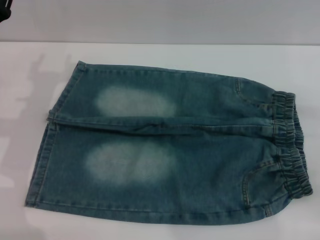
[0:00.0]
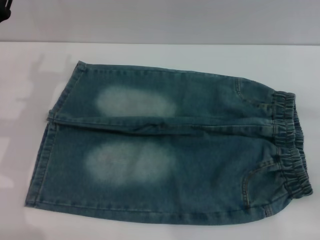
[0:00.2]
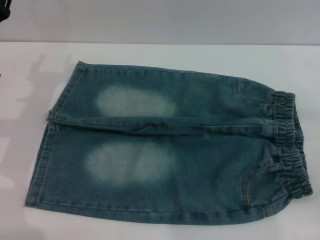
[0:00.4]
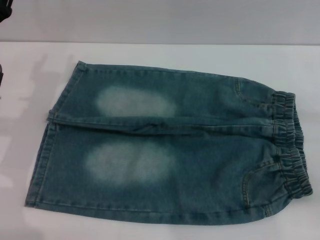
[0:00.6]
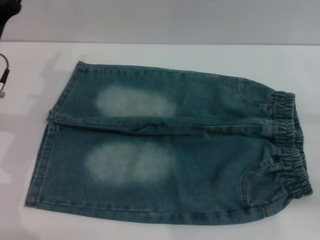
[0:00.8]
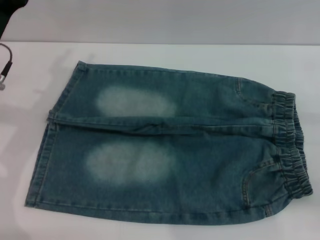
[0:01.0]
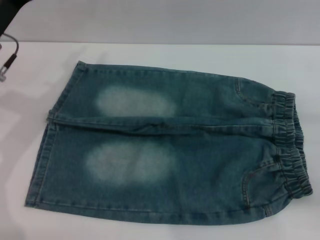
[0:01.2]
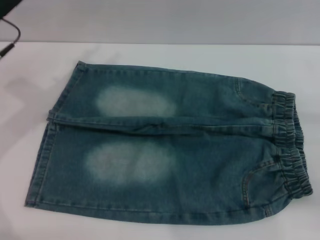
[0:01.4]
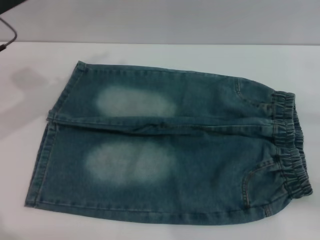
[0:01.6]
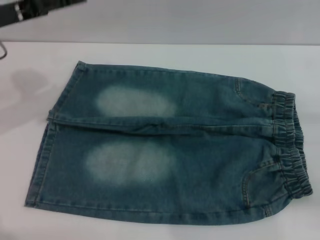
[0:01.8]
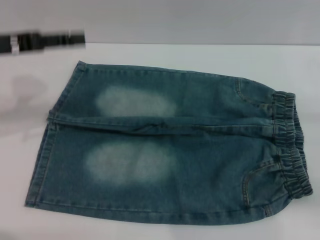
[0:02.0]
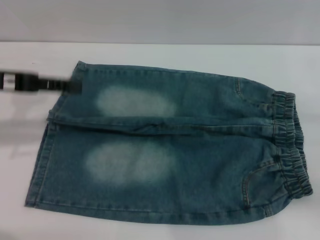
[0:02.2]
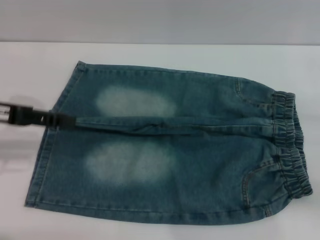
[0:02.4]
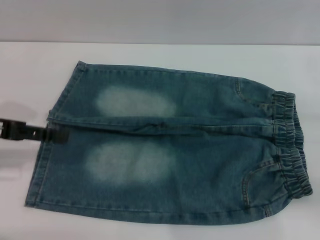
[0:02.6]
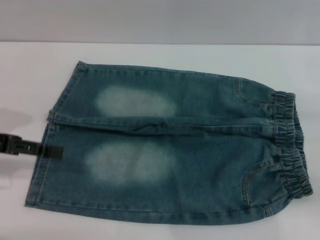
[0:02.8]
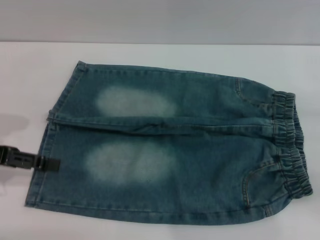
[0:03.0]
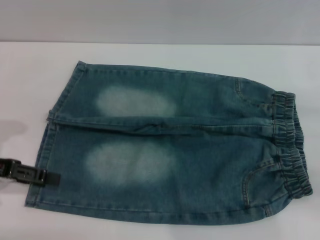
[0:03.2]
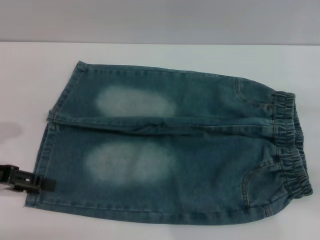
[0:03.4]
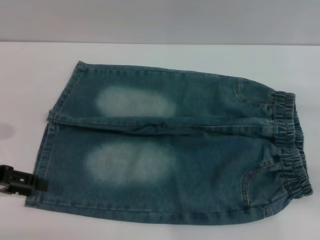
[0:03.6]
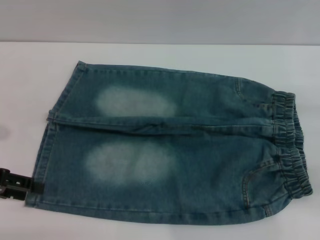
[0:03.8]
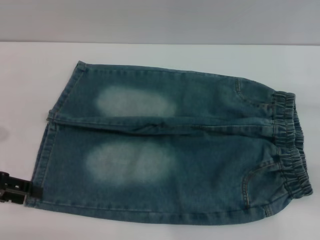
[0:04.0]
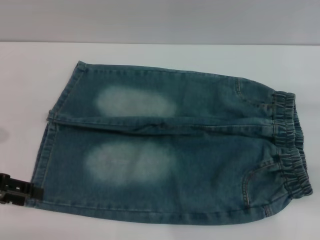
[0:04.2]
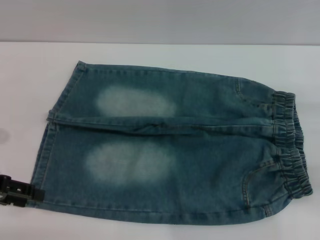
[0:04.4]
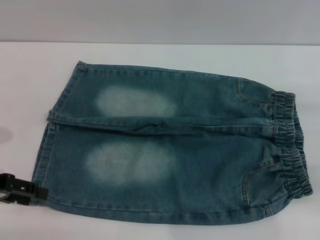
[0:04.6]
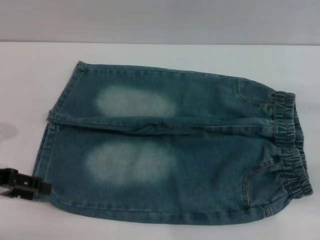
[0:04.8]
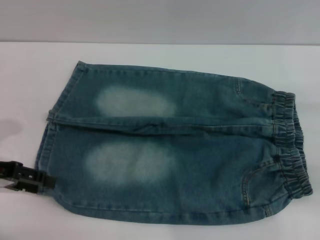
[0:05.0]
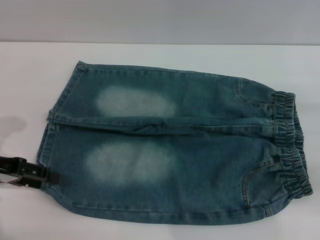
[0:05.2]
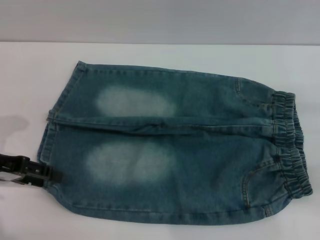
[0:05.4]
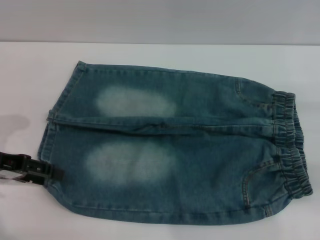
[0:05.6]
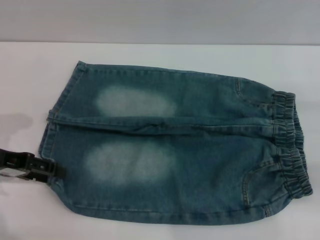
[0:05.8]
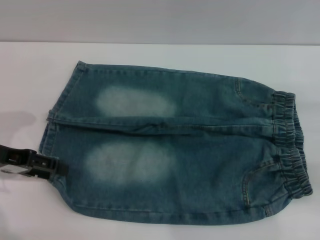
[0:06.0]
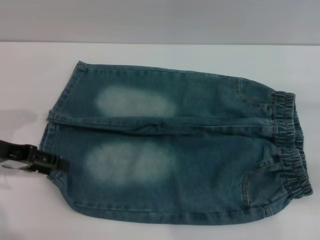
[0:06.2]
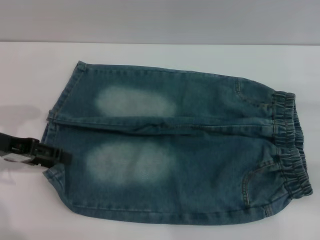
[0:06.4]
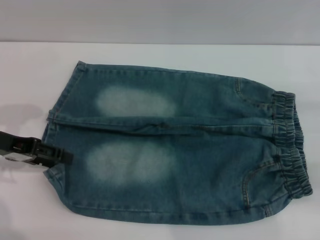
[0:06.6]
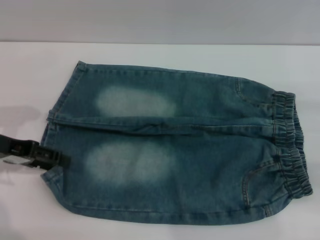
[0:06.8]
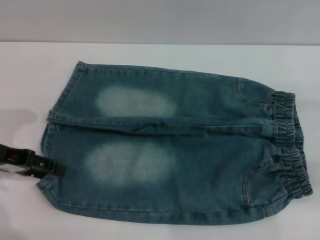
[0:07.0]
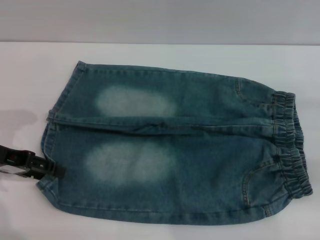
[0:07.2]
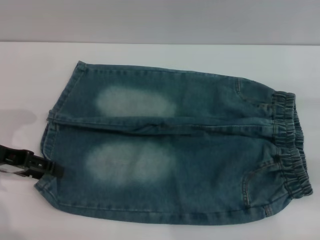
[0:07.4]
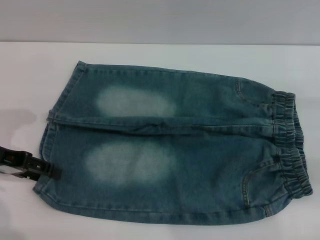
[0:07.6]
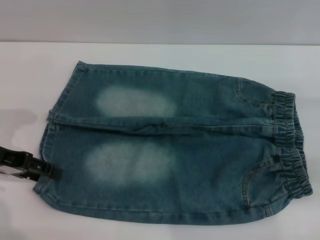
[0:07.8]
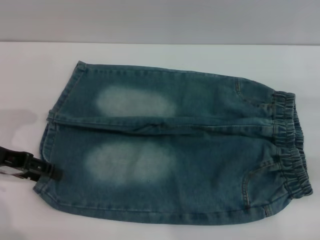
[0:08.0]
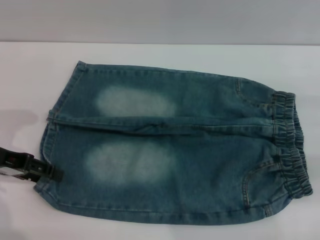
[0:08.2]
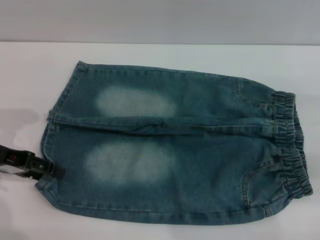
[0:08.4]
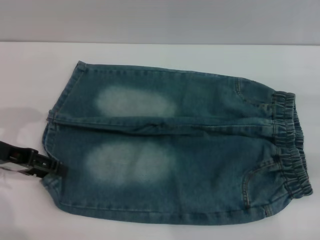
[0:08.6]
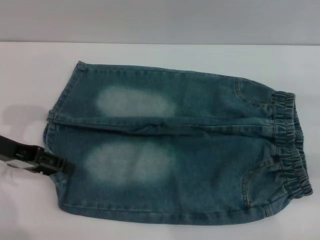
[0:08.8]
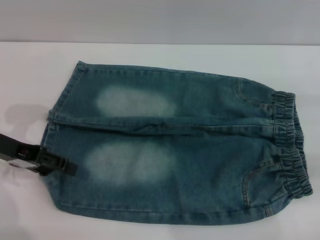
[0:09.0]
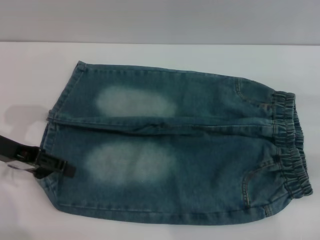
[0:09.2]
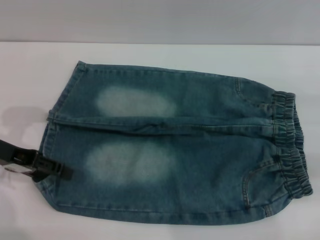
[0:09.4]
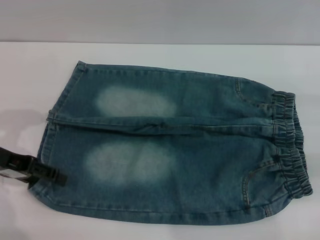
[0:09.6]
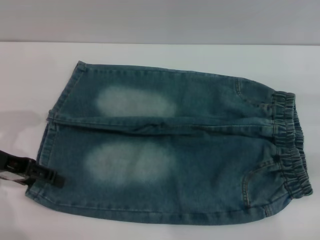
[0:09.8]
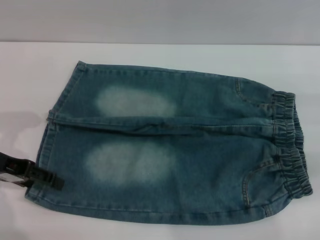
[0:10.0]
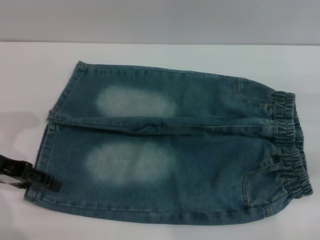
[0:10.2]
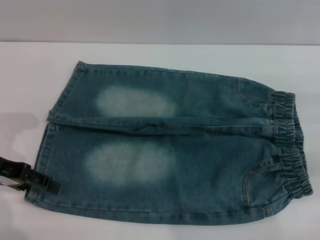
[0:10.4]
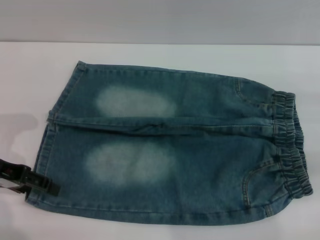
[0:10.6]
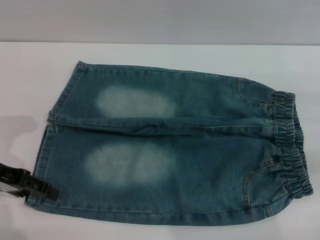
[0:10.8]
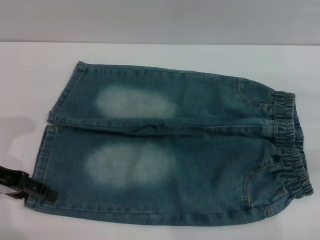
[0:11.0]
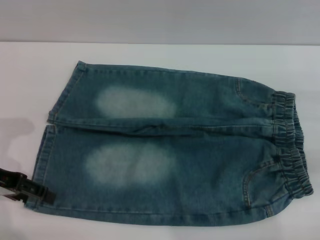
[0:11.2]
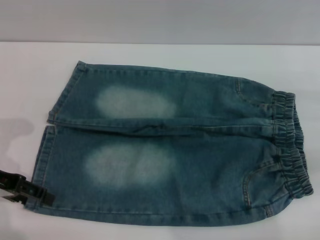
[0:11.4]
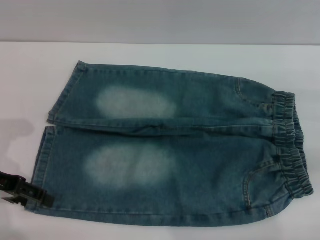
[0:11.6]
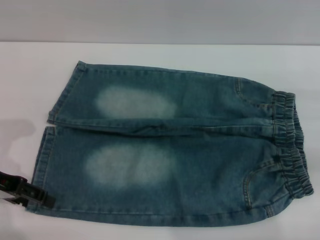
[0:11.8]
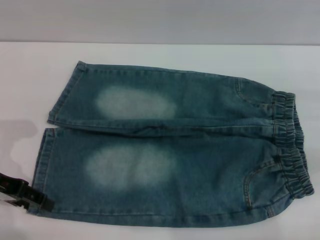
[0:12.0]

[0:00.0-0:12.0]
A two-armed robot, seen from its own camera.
0:00.0 to 0:01.6: The left gripper moves upward, approximately 10 cm.
0:01.6 to 0:03.0: The left gripper heads backward and to the left, covering roughly 10 cm.
0:04.4 to 0:06.0: The grippers stay close to where they were, moving slightly.
0:06.0 to 0:12.0: The grippers make only small movements.

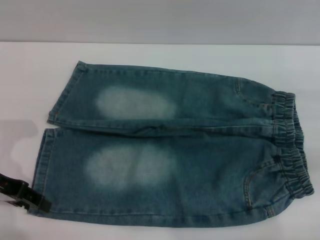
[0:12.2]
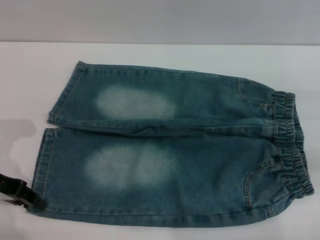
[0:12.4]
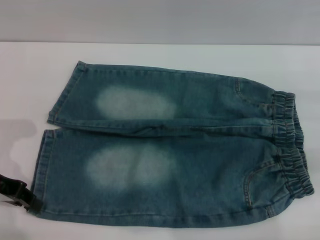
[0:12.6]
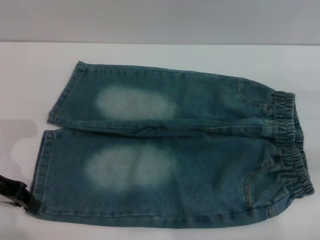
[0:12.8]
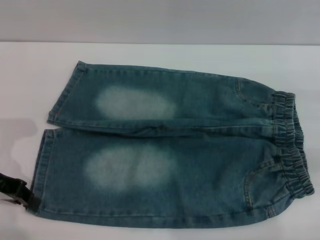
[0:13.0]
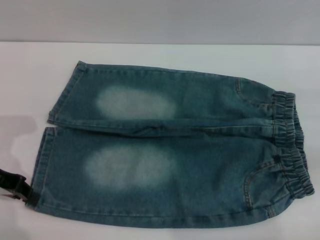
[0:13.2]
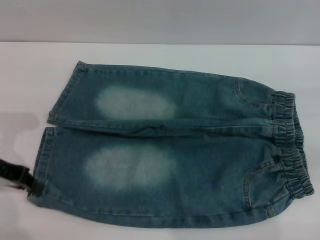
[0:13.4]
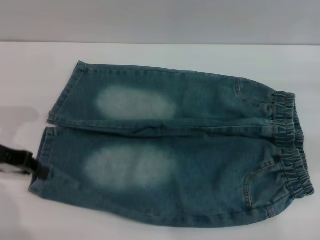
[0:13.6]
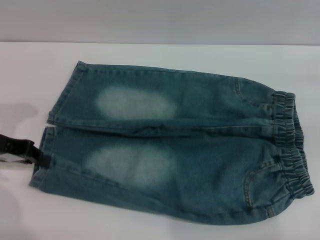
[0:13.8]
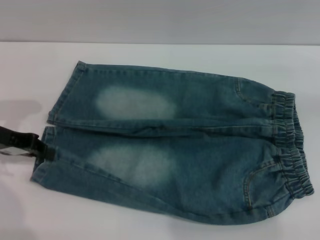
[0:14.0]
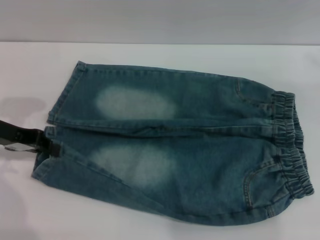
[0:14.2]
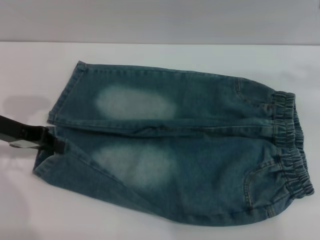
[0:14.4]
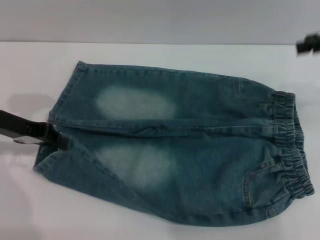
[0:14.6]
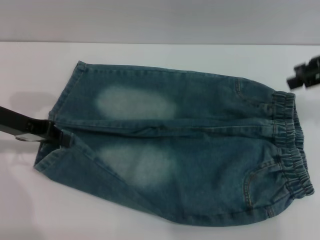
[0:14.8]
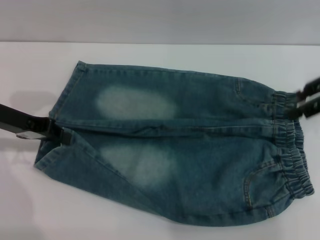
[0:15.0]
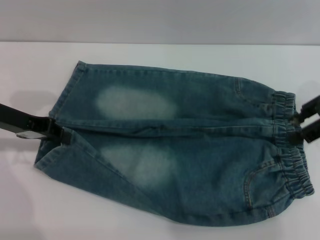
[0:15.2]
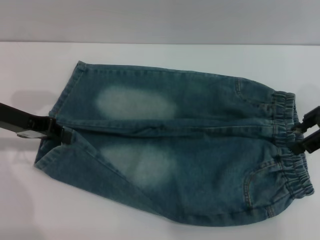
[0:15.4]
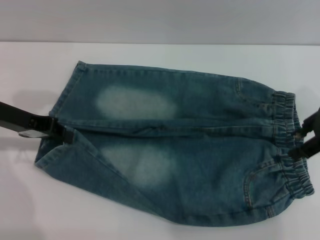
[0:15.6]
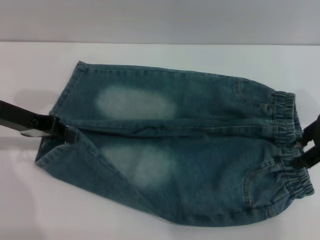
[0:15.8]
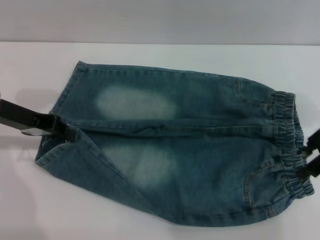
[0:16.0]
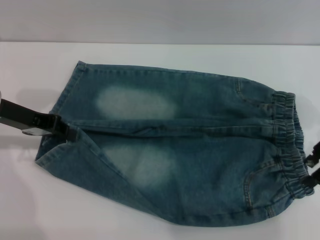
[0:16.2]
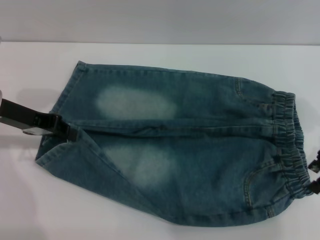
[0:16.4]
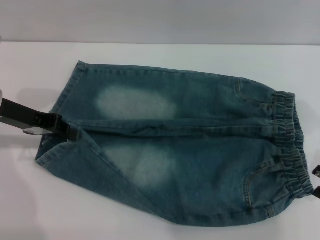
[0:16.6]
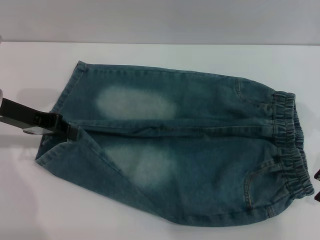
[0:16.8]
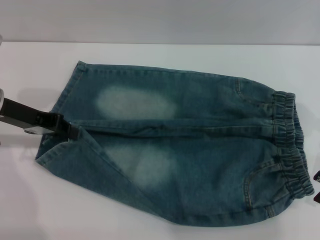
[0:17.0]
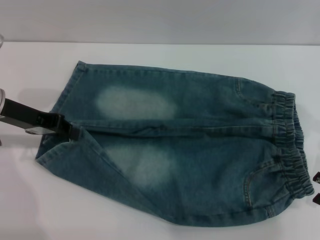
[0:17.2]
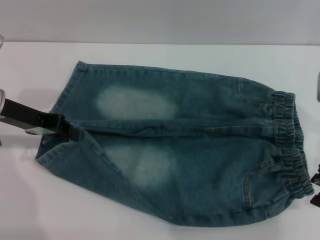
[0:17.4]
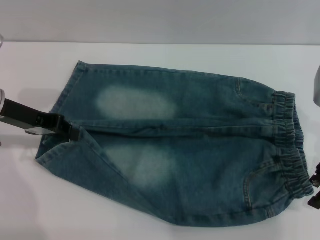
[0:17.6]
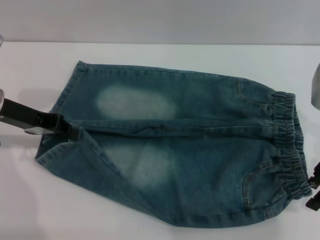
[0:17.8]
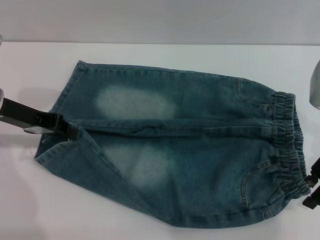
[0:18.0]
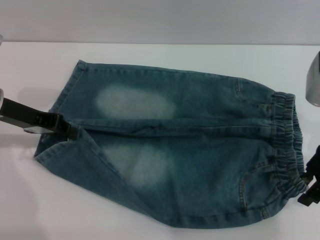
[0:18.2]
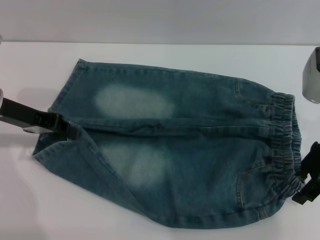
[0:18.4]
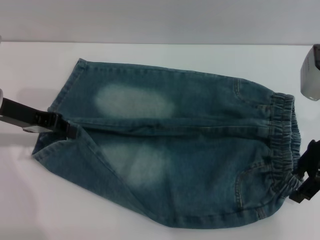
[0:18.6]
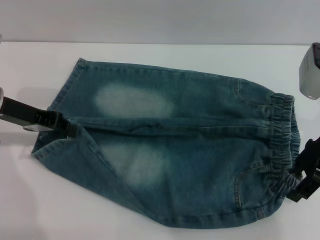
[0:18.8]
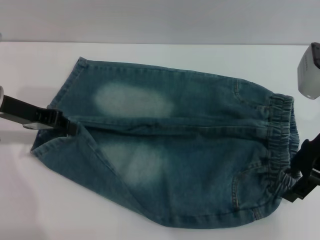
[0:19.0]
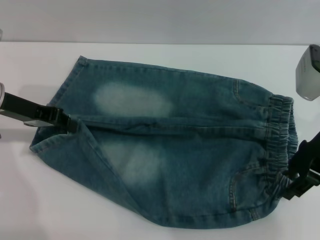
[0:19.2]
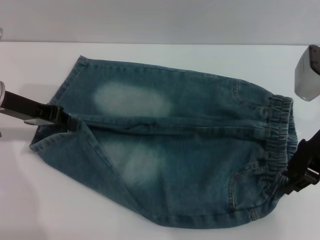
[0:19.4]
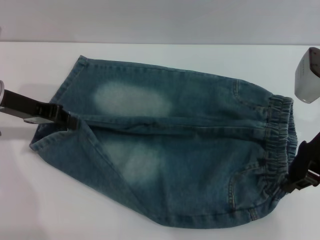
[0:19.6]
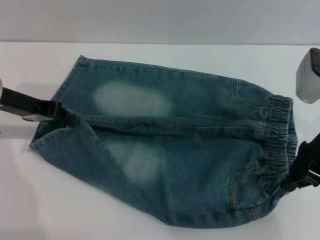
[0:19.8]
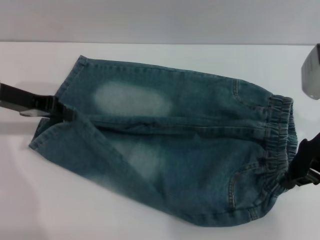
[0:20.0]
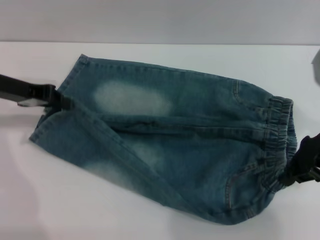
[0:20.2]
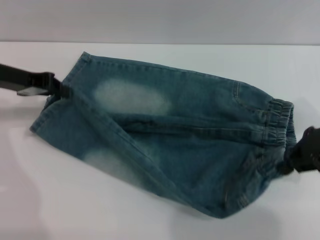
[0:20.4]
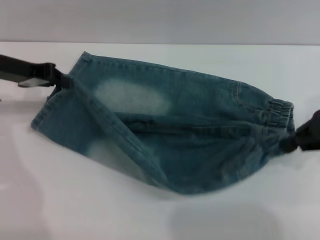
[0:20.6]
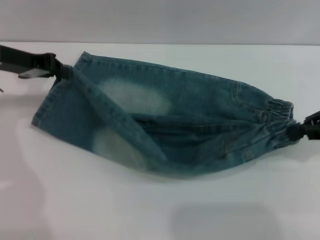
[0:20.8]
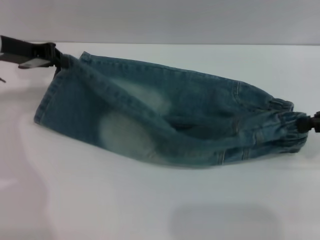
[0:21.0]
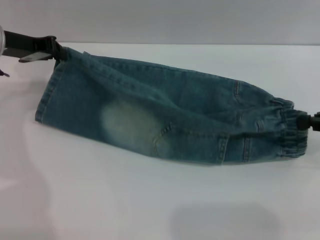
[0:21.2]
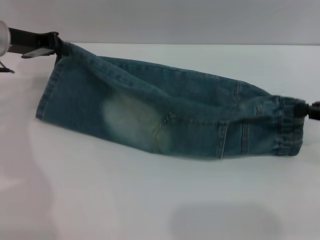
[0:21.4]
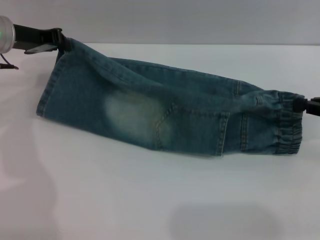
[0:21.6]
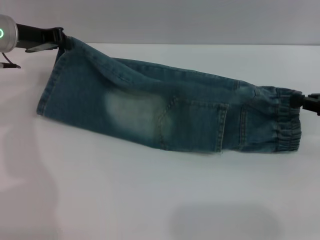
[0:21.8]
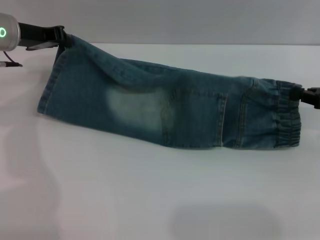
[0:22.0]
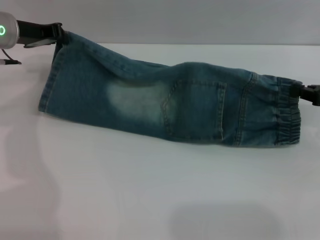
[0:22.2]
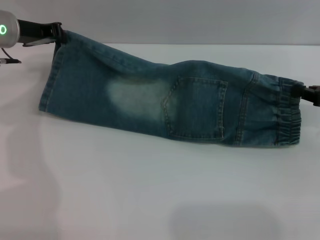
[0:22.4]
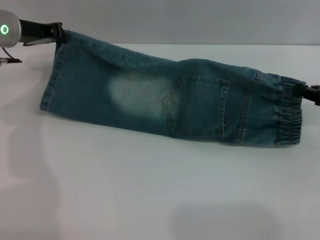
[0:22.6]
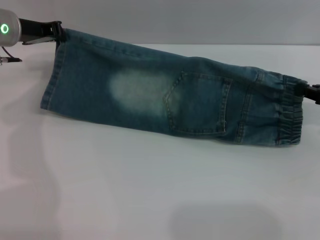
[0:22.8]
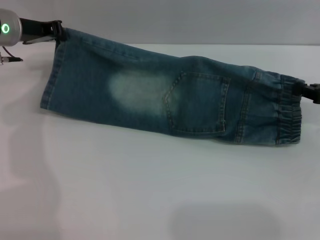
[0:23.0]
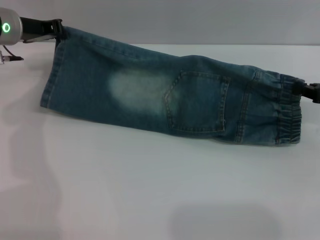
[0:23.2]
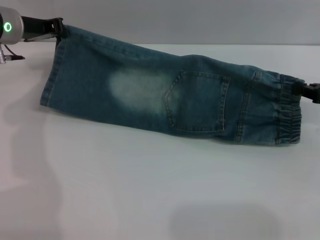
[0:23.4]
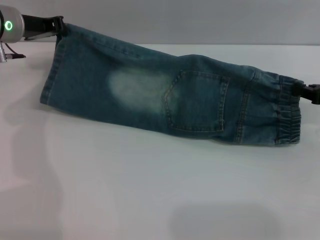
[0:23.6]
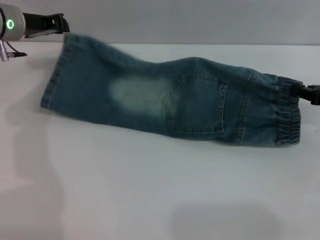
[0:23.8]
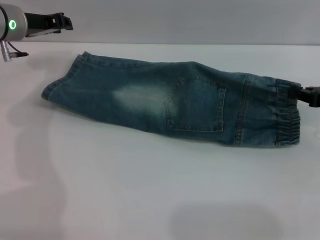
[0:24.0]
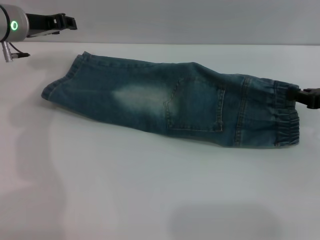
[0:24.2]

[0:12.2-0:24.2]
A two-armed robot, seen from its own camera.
Step, 0:12.2 to 0:24.0: Fold the bottom of the pants upward with both grippers.
0:12.2 to 0:13.8: The left gripper closes. Meanwhile the right gripper moves to the right and upward, about 10 cm.
0:13.8 to 0:15.2: The right gripper goes some 15 cm to the left.
0:15.2 to 0:16.6: The right gripper moves some 5 cm.
0:16.6 to 0:18.2: There are only small adjustments of the grippers.
0:18.2 to 0:19.8: The right gripper closes.
0:19.8 to 0:21.2: The left gripper heads forward, covering some 5 cm. The right gripper heads to the right, covering roughly 10 cm.
0:22.6 to 0:24.2: The grippers move only a little.
